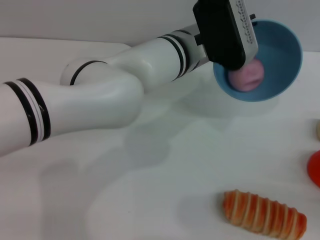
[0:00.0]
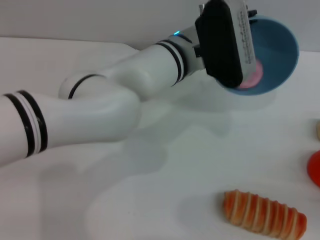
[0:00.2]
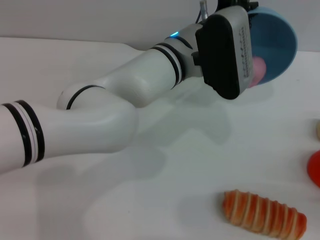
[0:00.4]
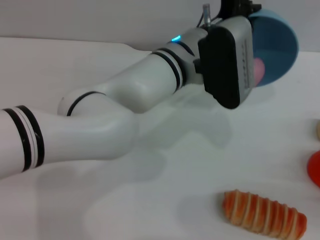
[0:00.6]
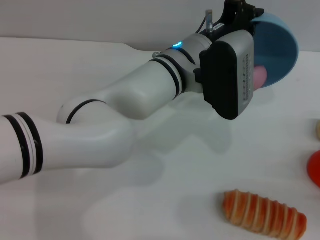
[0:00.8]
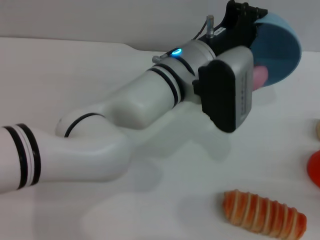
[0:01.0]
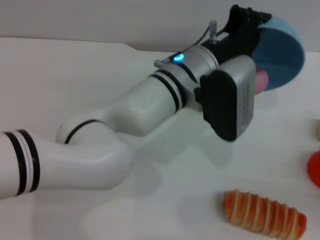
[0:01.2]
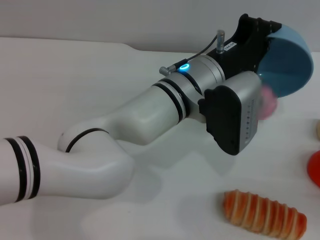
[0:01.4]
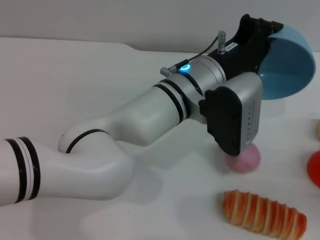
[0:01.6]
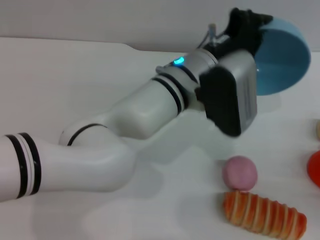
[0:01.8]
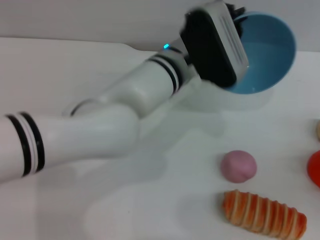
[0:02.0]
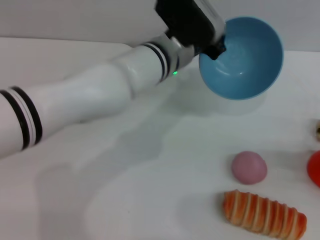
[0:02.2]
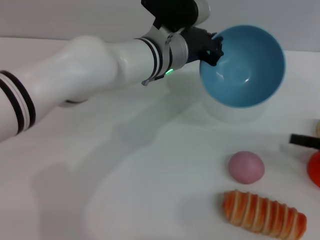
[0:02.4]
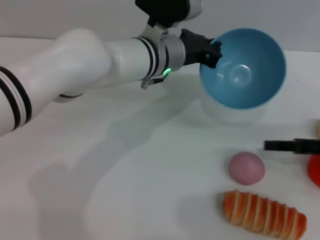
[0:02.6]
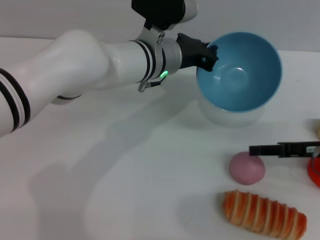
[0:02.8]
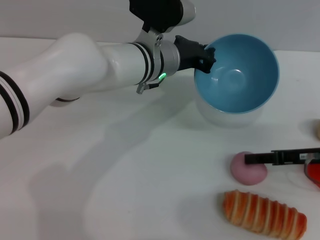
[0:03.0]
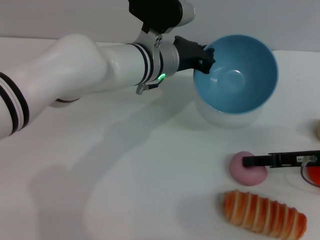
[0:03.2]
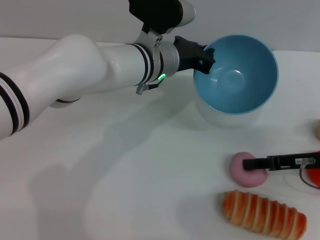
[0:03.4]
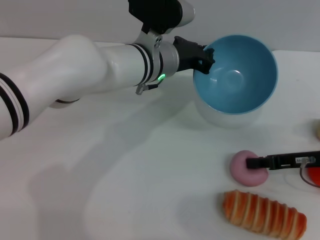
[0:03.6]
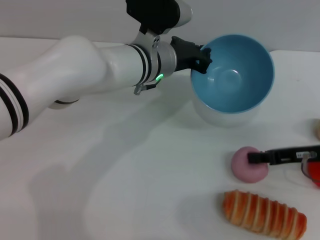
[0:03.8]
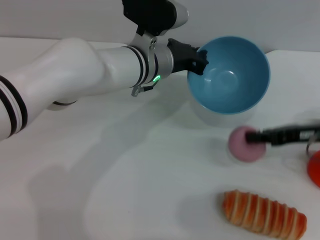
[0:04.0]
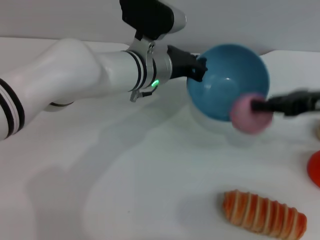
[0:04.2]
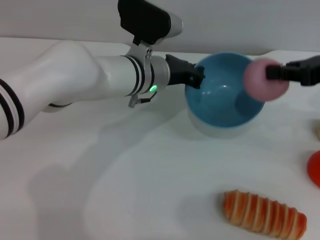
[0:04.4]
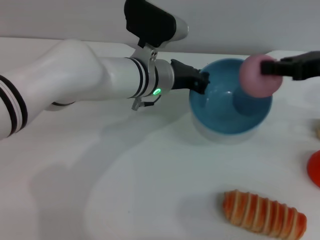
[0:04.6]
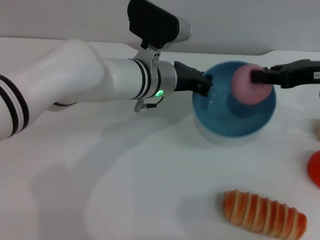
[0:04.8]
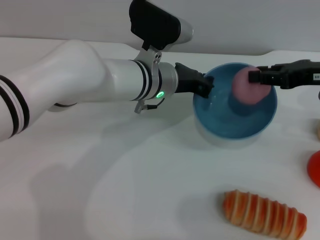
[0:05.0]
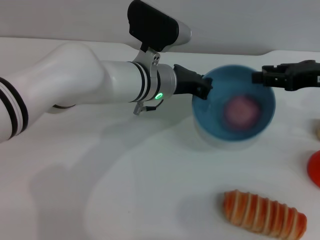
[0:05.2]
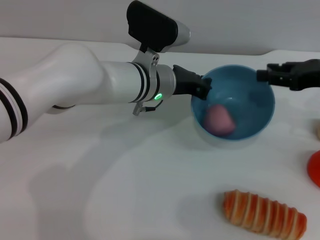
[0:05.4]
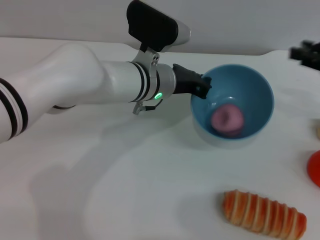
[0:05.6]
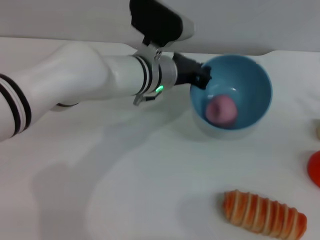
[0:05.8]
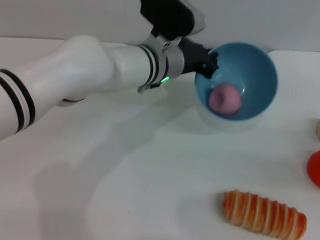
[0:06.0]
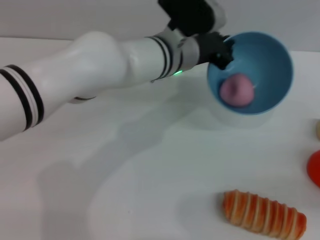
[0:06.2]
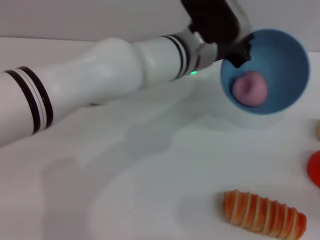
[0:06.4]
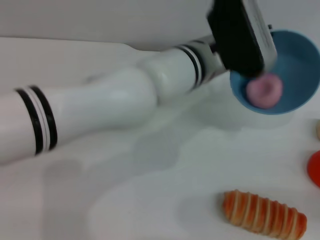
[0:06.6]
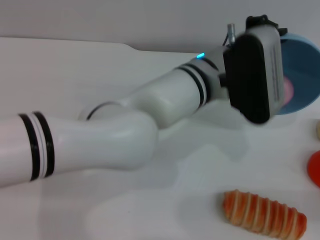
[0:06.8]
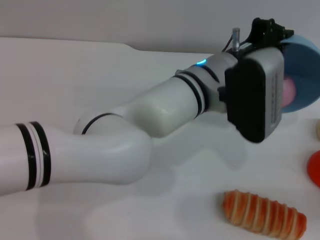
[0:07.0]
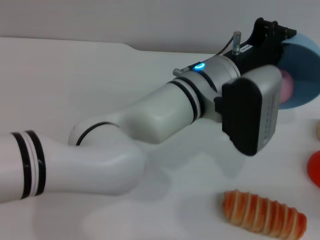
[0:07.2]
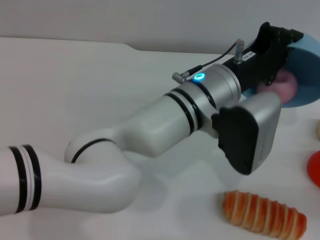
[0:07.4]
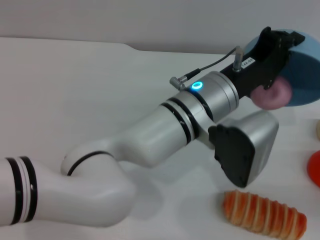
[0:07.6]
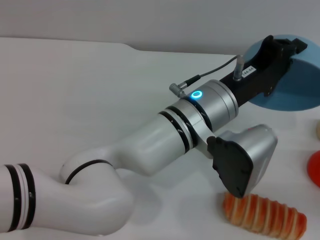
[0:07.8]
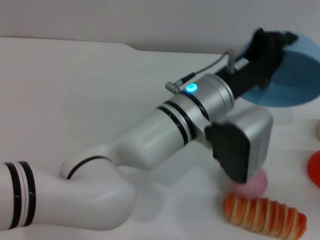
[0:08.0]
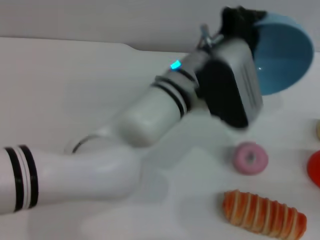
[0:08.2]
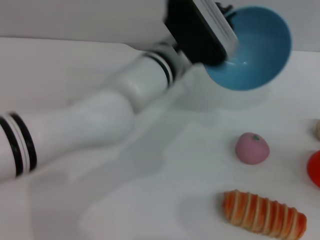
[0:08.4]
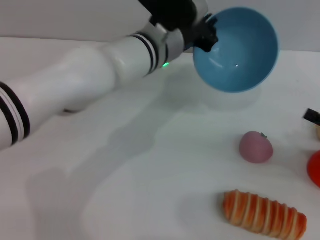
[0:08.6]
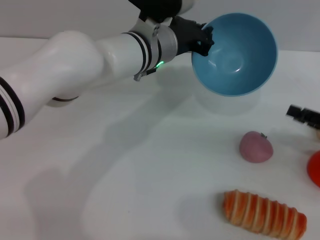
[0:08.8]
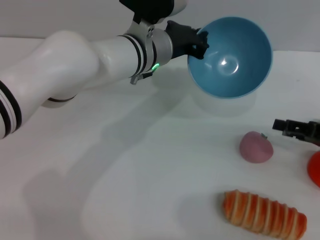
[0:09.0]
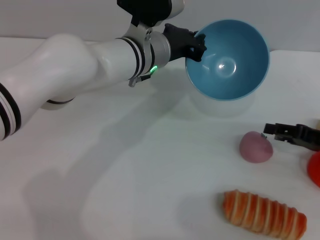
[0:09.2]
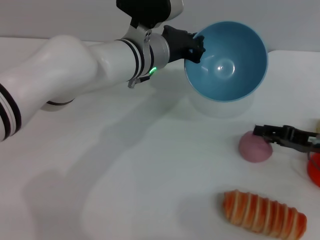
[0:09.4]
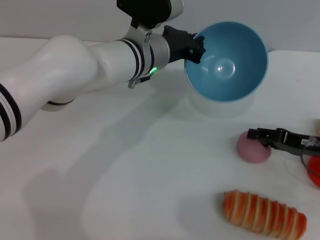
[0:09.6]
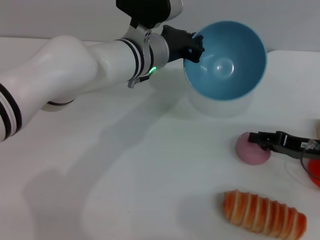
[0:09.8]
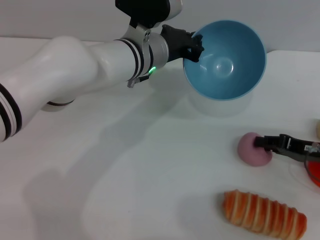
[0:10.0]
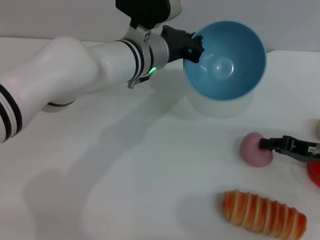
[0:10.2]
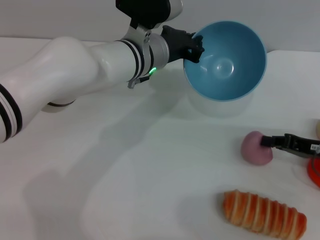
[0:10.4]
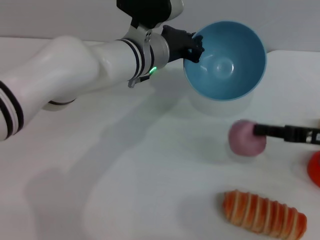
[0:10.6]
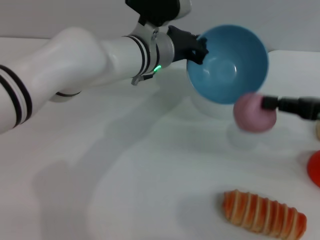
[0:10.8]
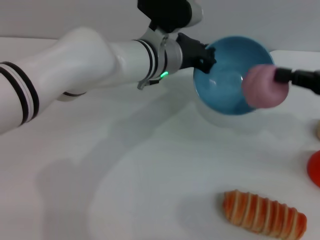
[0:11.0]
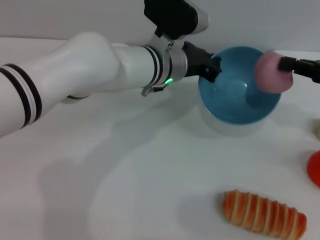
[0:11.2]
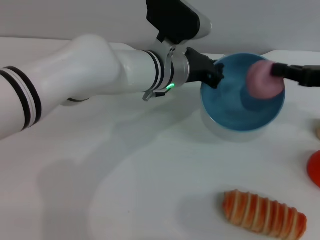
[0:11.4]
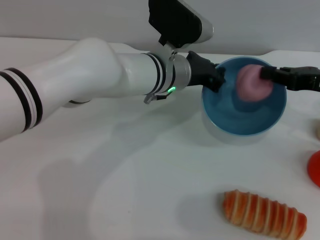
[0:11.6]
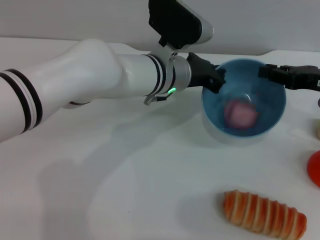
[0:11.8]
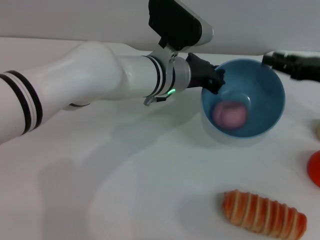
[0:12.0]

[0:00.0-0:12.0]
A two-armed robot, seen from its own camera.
Task of the whole recording: put the peach into the blue bowl and pour it out repeatedly.
Step, 0:00.0 to 0:01.8: Pour the peach out of bowl.
Step, 0:02.0 to 0:03.8: Pick up the peach with the right gripper.
Step, 0:04.0 to 0:05.4: Place the peach into the bowl.
Step, 0:05.6 to 0:08.2: Pour the peach out of bowl.
Step, 0:08.4 to 0:10.4: Pick up the peach with the right gripper.
0:00.0 to 0:01.6: The left gripper shifts approximately 5 cm backward.
0:01.6 to 0:03.0: The right gripper heads forward and to the left, covering about 15 cm; the left gripper travels forward and to the left by roughly 10 cm.
0:03.0 to 0:04.4: The right gripper moves upward, roughly 15 cm, and closes its fingers.
0:04.4 to 0:06.0: The right gripper shifts about 20 cm to the right, downward and backward, and opens its fingers.
0:06.0 to 0:07.6: The left gripper goes roughly 10 cm backward and to the right; the right gripper moves downward, some 5 cm.
0:07.6 to 0:09.0: Both grippers move forward and to the left, some 10 cm.
0:09.0 to 0:10.4: The right gripper closes its fingers.
0:10.4 to 0:12.0: The right gripper is displaced upward and forward by approximately 10 cm, and opens up.

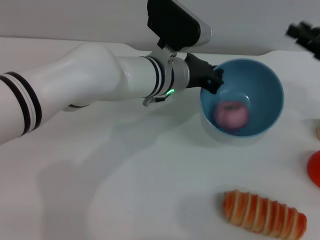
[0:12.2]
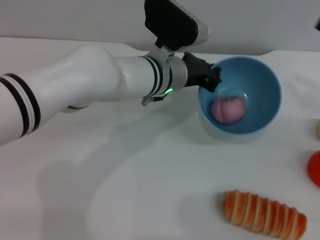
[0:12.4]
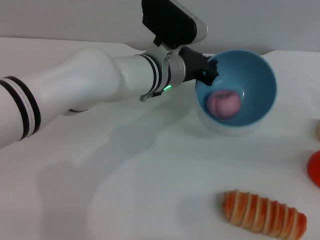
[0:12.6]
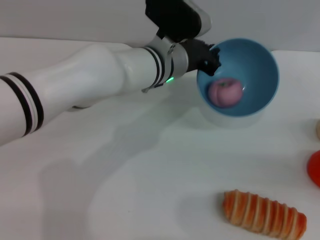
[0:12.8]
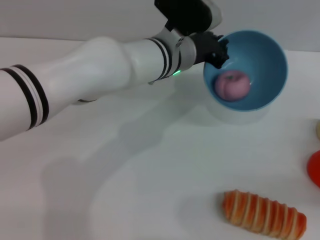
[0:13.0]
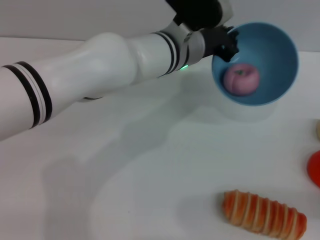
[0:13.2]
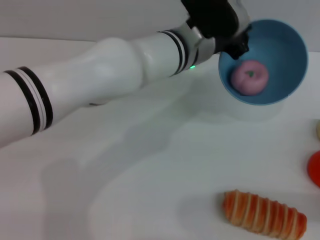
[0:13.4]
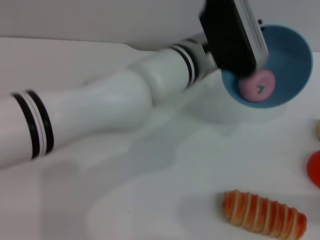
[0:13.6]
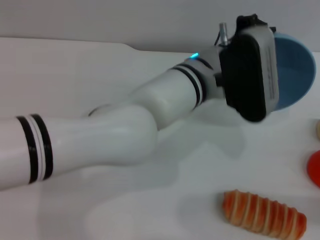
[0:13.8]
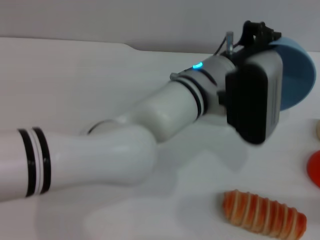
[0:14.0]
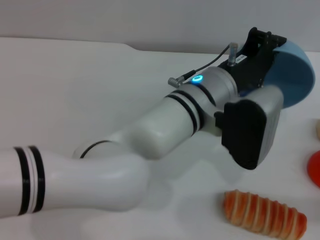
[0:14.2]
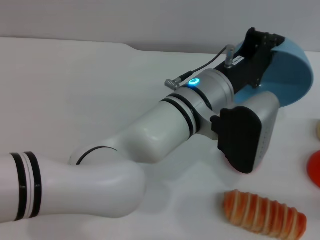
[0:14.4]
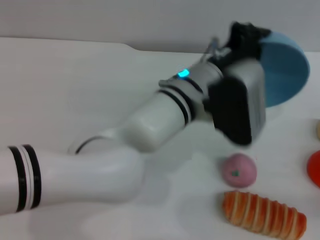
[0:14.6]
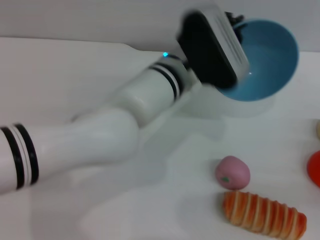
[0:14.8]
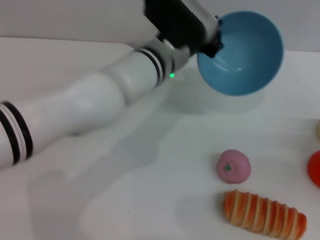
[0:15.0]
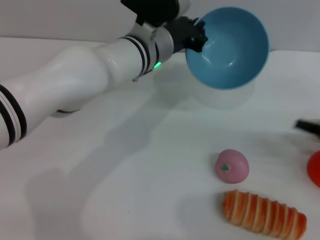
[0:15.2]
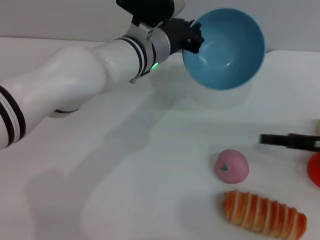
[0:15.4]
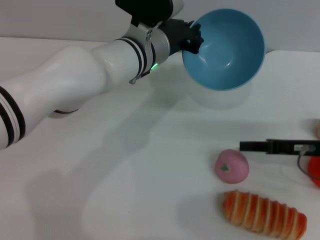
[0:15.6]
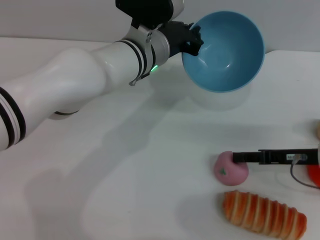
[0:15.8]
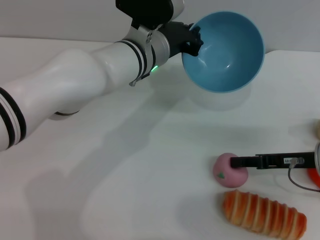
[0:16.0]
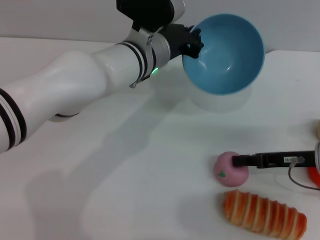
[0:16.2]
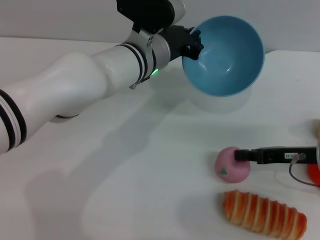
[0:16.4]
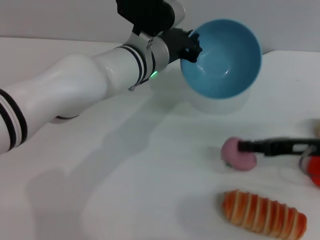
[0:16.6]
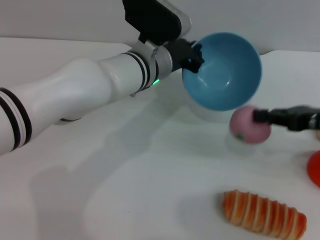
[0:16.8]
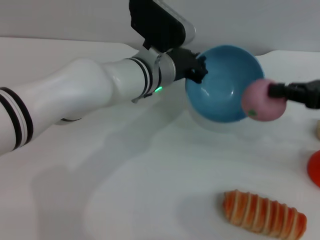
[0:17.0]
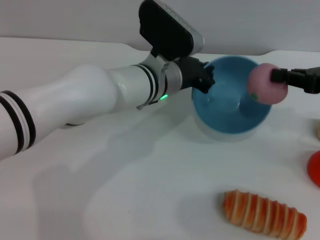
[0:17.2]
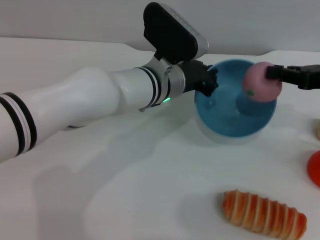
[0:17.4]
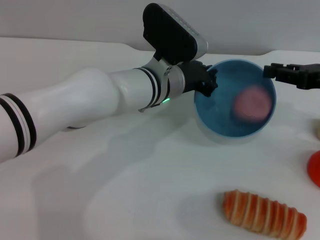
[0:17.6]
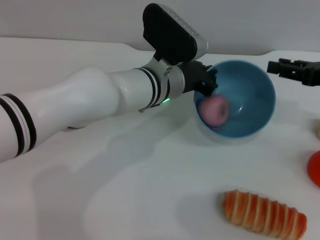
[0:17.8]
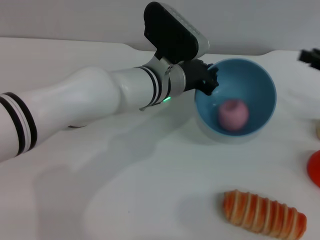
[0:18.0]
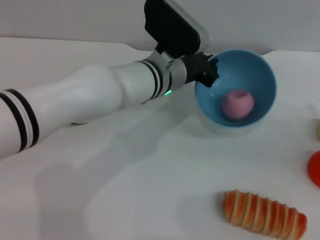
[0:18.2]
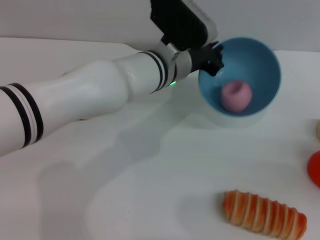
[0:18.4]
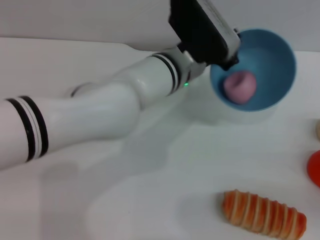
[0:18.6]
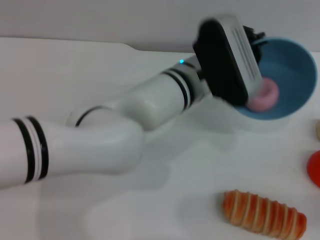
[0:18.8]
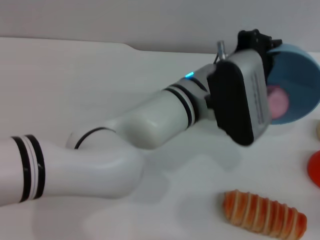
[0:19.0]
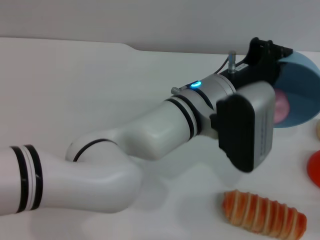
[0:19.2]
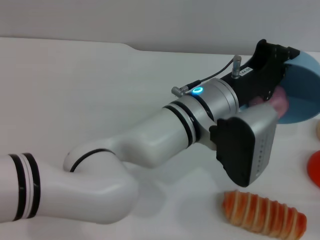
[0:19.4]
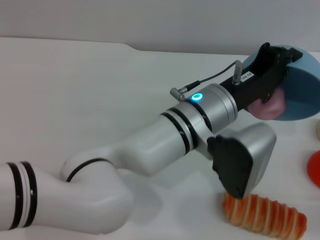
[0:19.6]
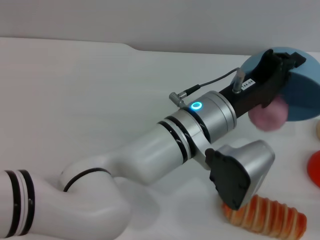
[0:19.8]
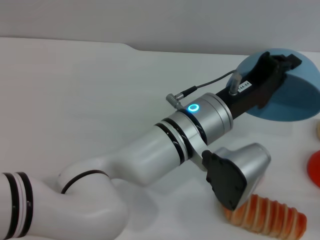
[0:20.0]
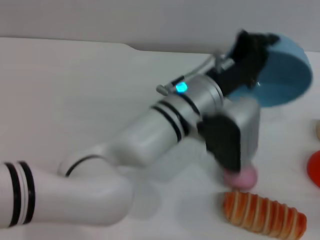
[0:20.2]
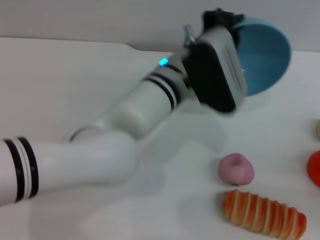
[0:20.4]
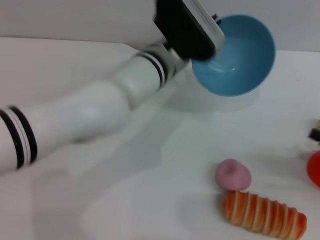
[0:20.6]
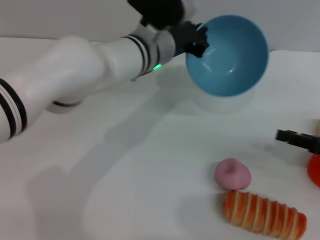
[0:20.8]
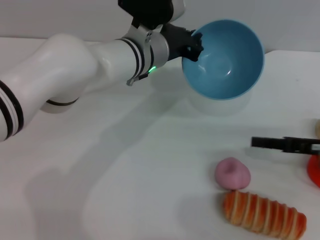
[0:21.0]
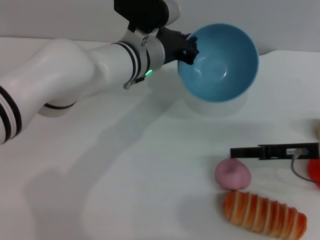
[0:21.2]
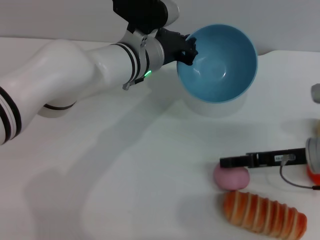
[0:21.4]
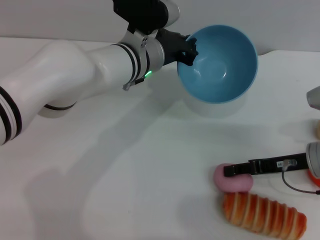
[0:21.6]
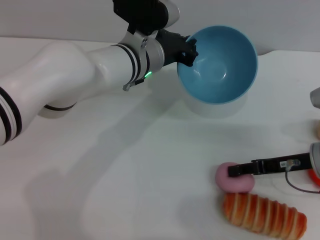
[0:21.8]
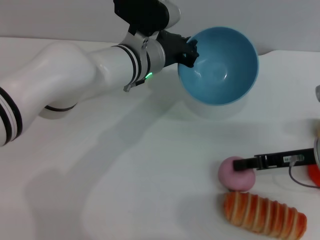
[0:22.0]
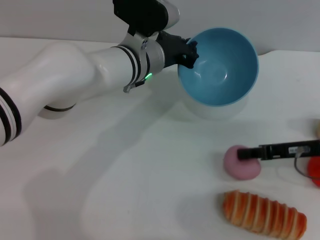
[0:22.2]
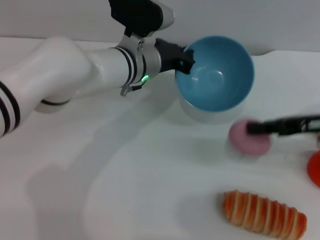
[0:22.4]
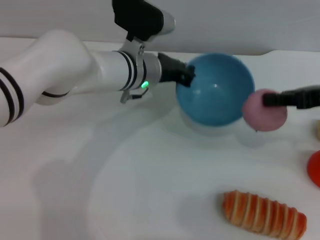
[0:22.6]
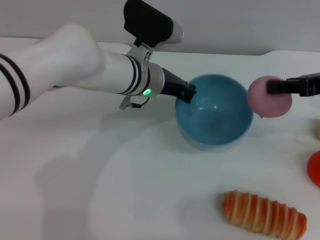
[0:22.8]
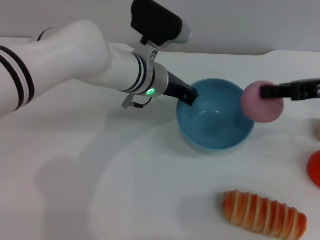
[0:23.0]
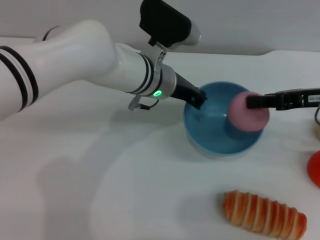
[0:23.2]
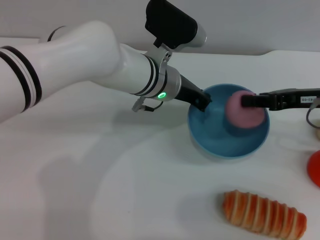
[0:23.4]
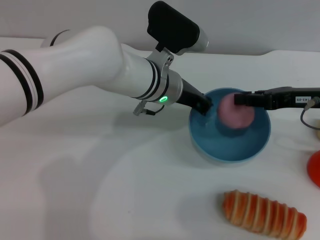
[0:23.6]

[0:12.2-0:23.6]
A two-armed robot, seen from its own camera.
Task of the whole recording: put the peach into the blue bowl and pour it out repeatedly.
Step, 0:12.2 to 0:14.8: Pour the peach out of bowl.
Step, 0:15.0 to 0:16.8: Pick up the peach with the right gripper.
Step, 0:17.0 to 0:18.4: Place the peach into the bowl.
Step, 0:18.6 to 0:20.2: Pour the peach out of bowl.
Step, 0:20.6 to 0:22.0: Pick up the peach with the right gripper.
0:12.2 to 0:13.6: The left gripper moves approximately 5 cm. Meanwhile the right gripper shifts roughly 20 cm backward, downward and to the right.
0:13.6 to 0:15.0: The right gripper travels forward by approximately 5 cm.
0:15.0 to 0:16.4: The right gripper travels to the left and forward by some 15 cm.
0:16.4 to 0:17.8: The right gripper shifts about 10 cm upward, and closes, then reopens.
0:17.8 to 0:19.4: The right gripper heads backward, downward and to the right, covering roughly 20 cm; the left gripper is displaced backward and to the right by approximately 10 cm.
0:19.4 to 0:20.8: The two grippers go about 10 cm forward and to the left.
0:20.8 to 0:22.2: The right gripper travels to the left by approximately 5 cm, and closes up.
0:22.2 to 0:23.6: The right gripper shifts roughly 5 cm upward.
